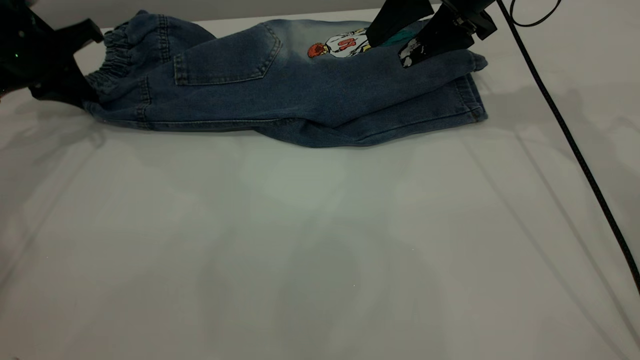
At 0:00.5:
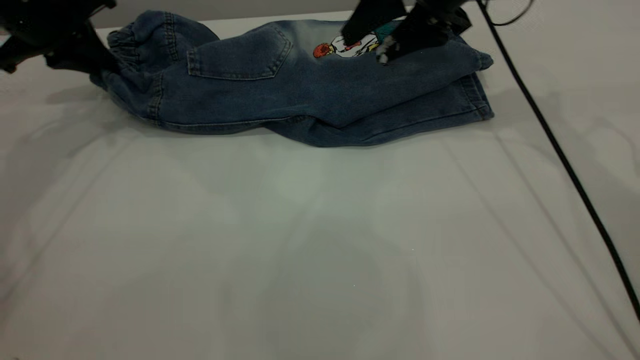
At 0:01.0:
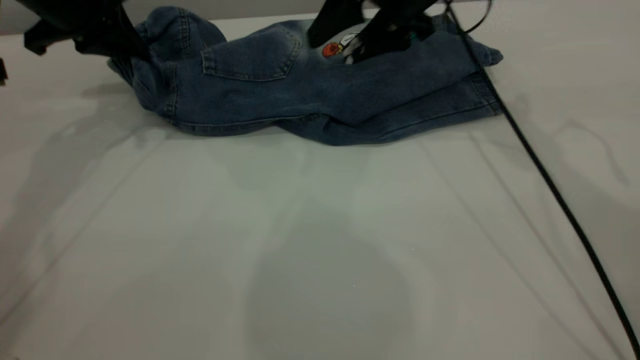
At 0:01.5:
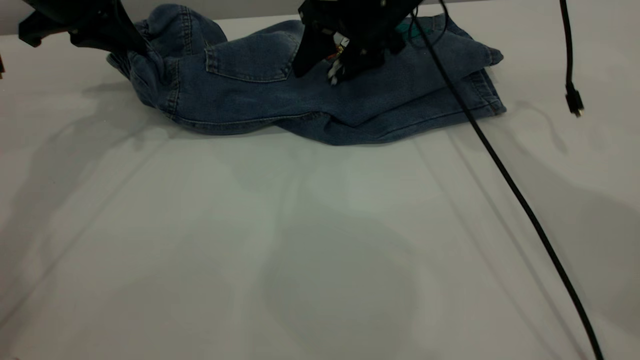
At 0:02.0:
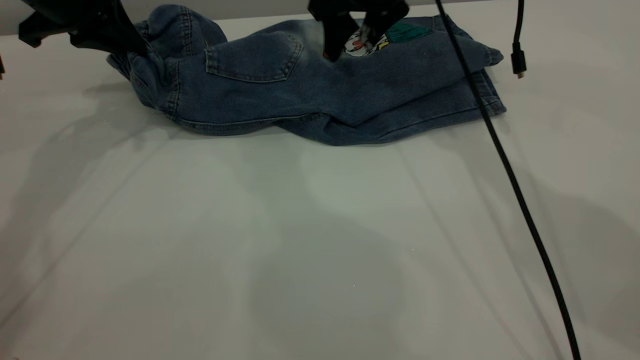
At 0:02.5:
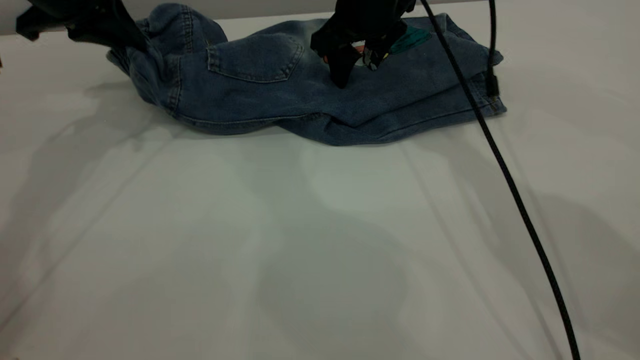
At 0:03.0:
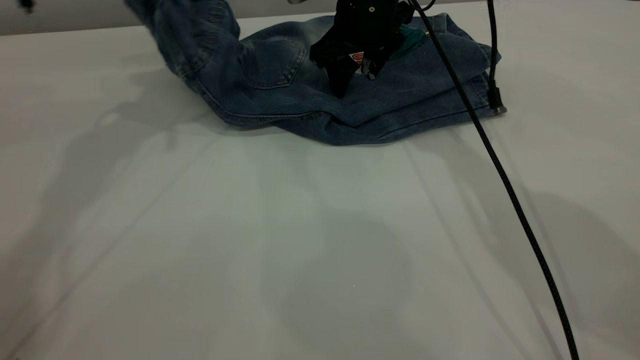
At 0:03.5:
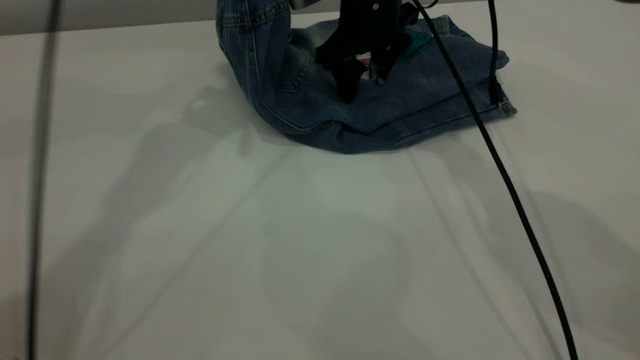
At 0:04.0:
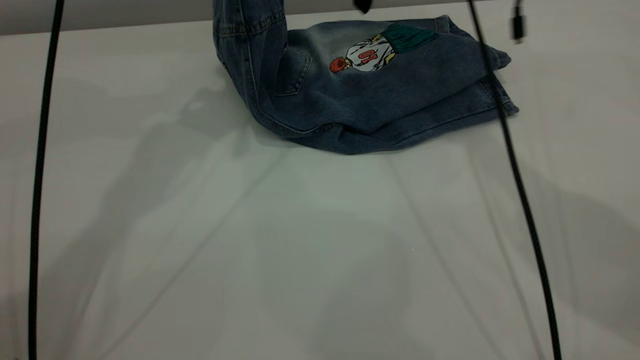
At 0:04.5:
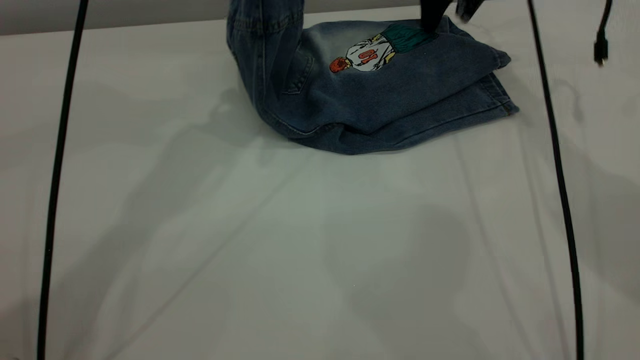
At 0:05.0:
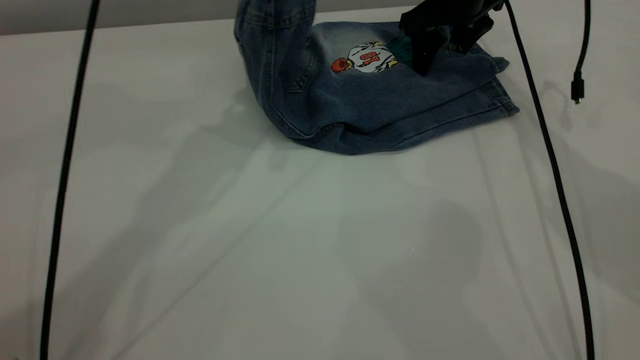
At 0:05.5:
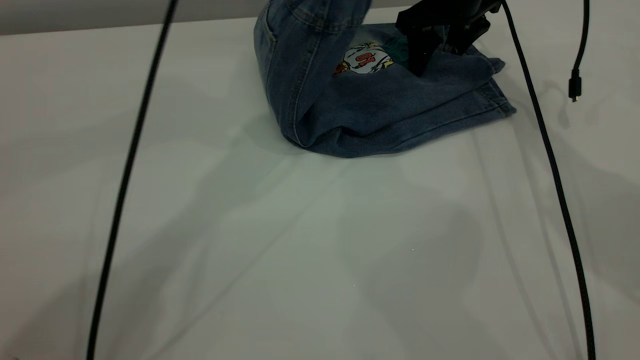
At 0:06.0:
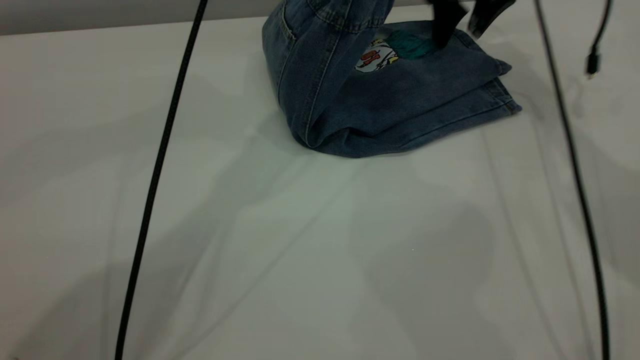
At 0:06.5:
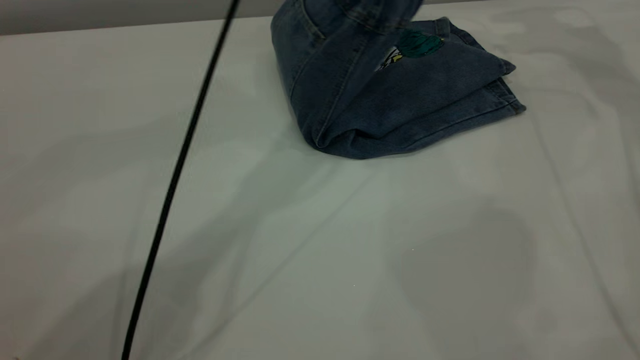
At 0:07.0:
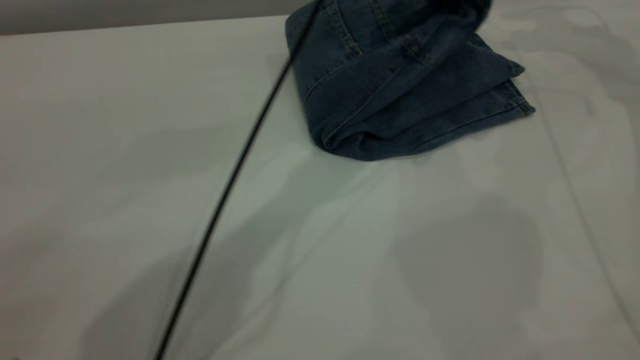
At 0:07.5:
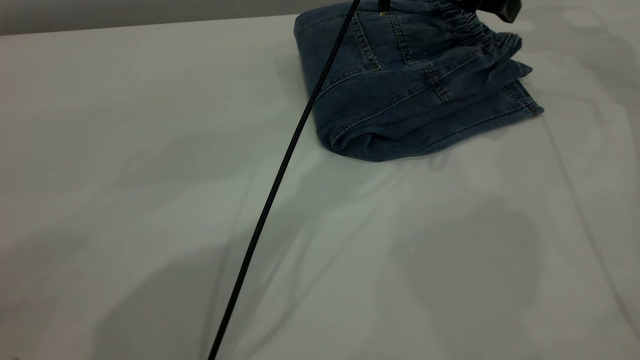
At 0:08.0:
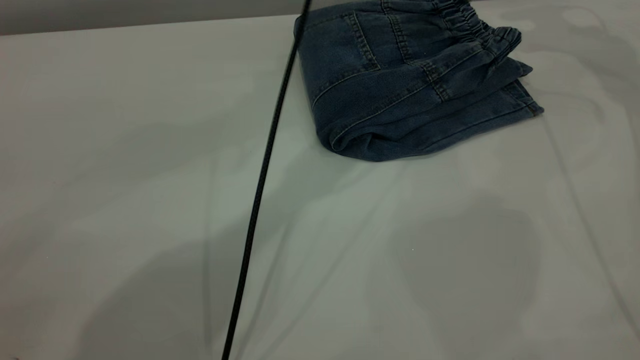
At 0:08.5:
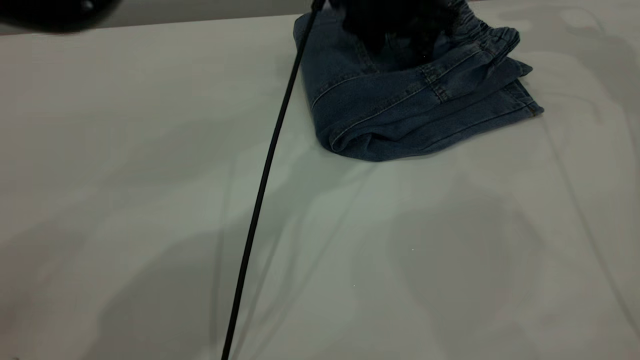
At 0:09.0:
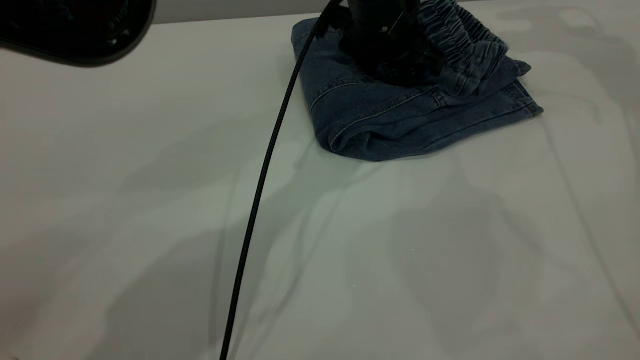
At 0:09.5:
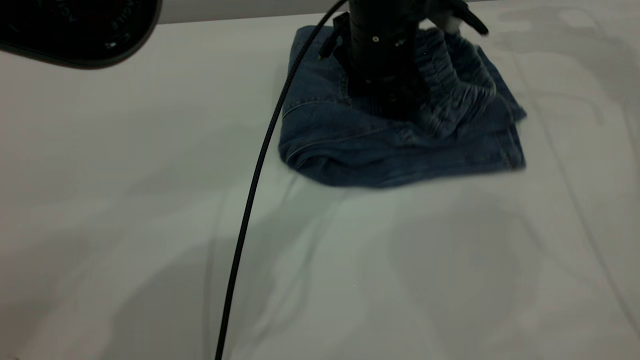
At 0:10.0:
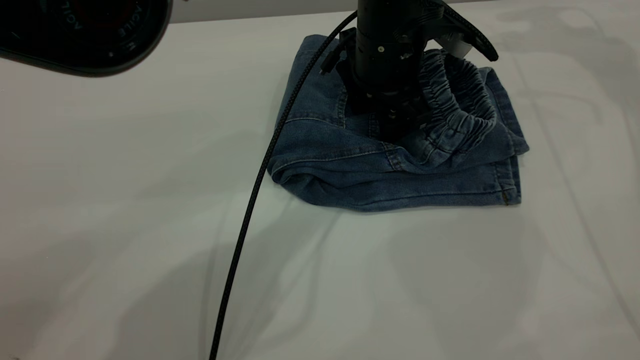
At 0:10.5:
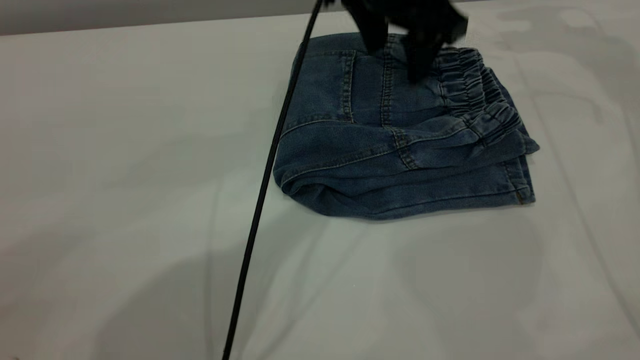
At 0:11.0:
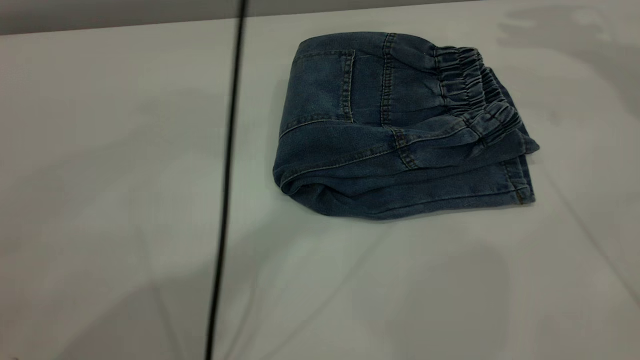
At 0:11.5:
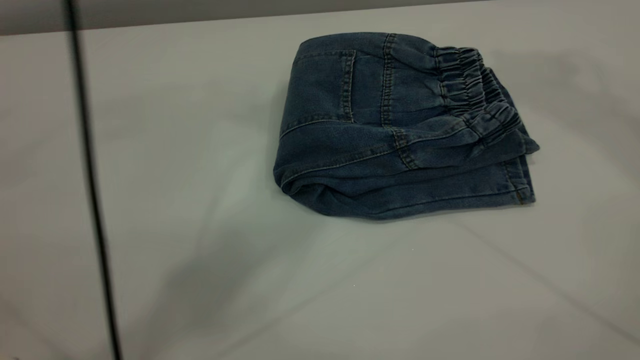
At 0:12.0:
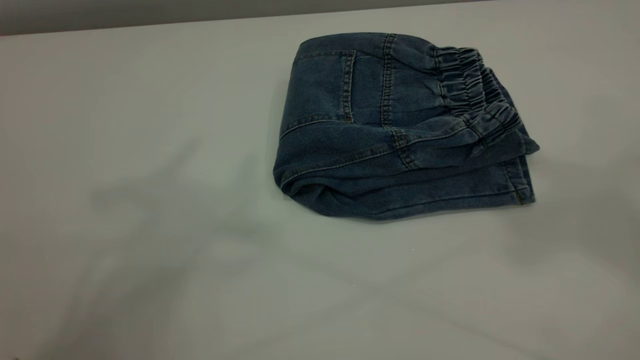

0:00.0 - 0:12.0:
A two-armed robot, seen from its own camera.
Step, 0:00.0 - 0:07.5: Fold the pants from left to right.
0:00.0 - 0:02.0: The left gripper travels to the right and upward by about 10 cm. Meanwhile the right gripper heads to the left and forward, covering some 10 cm.
0:02.0 - 0:04.0: The left gripper is displaced to the right and upward by roughly 15 cm; the right gripper goes roughly 5 cm upward.
0:04.0 - 0:06.0: The left gripper travels to the right by some 15 cm. Meanwhile the right gripper moves to the right and downward, approximately 10 cm.
0:06.0 - 0:08.0: The left gripper moves to the right and downward, some 10 cm, and opens up, while the right gripper moves to the right and upward, approximately 15 cm.
0:08.0 - 0:10.0: The left gripper goes roughly 10 cm downward.
0:10.0 - 0:12.0: The right gripper goes roughly 50 cm upward and backward, while the left gripper moves upward, approximately 50 cm.
